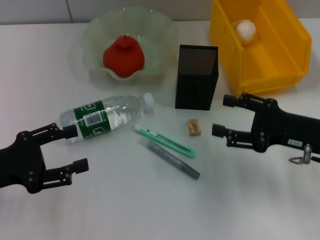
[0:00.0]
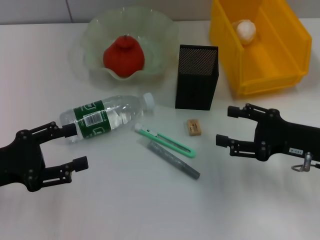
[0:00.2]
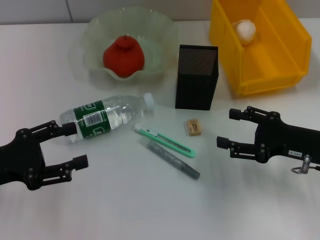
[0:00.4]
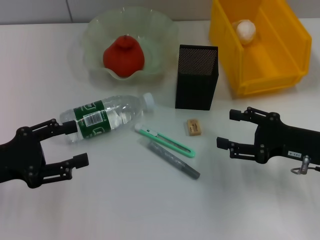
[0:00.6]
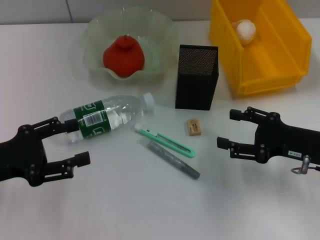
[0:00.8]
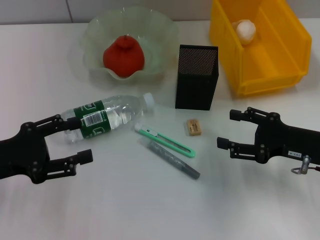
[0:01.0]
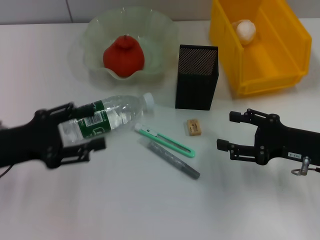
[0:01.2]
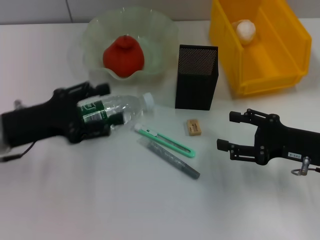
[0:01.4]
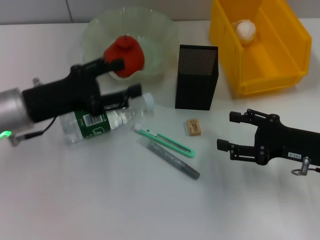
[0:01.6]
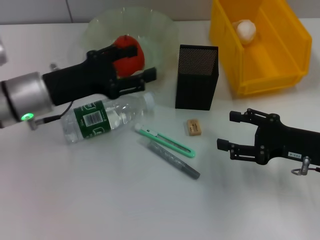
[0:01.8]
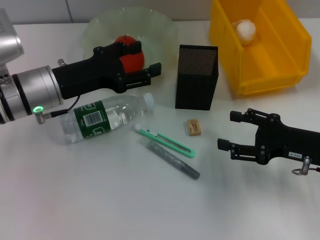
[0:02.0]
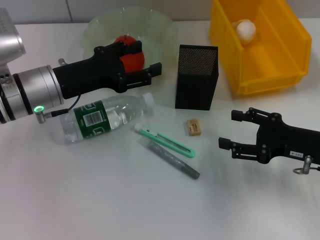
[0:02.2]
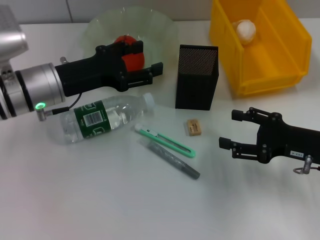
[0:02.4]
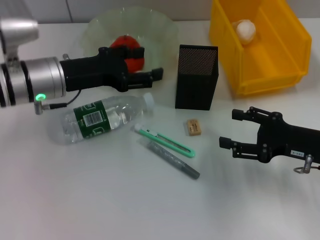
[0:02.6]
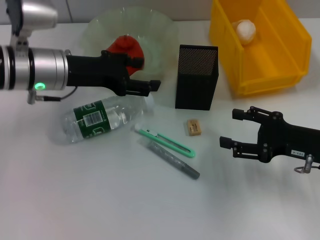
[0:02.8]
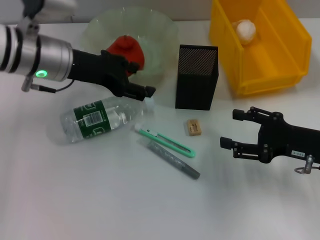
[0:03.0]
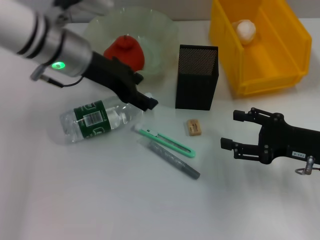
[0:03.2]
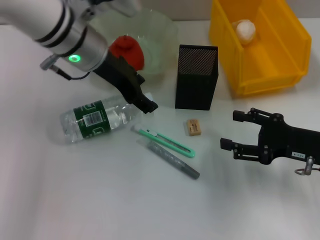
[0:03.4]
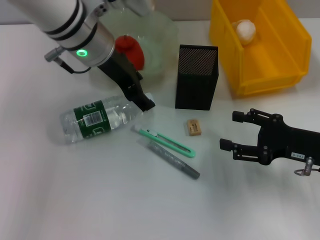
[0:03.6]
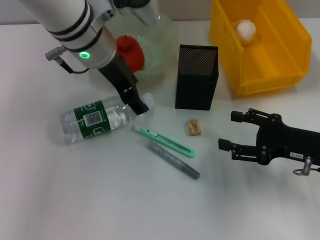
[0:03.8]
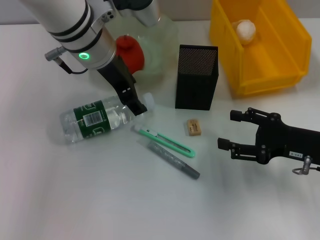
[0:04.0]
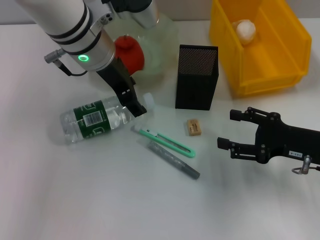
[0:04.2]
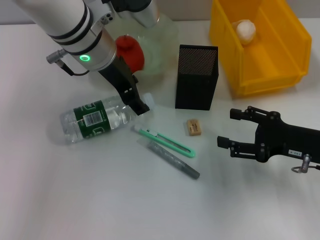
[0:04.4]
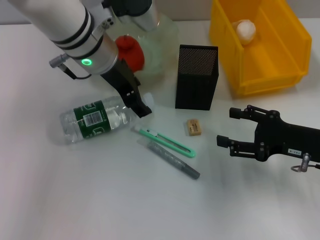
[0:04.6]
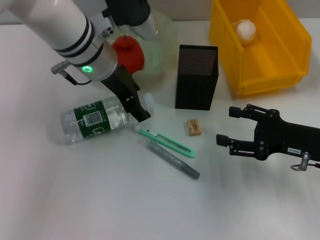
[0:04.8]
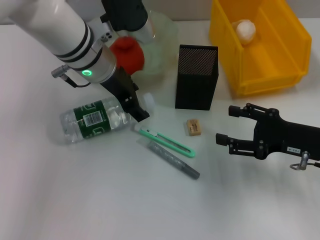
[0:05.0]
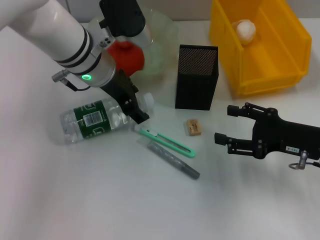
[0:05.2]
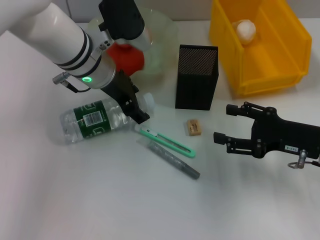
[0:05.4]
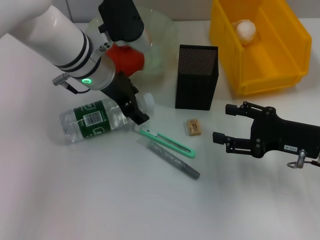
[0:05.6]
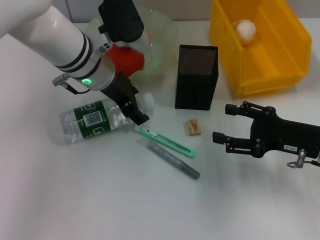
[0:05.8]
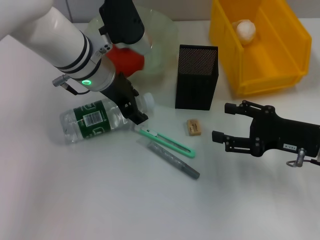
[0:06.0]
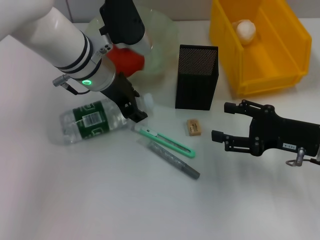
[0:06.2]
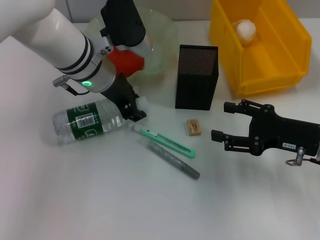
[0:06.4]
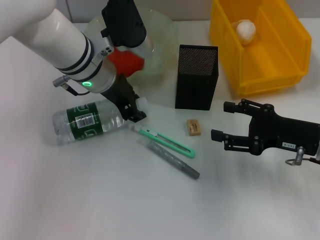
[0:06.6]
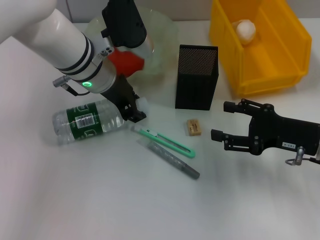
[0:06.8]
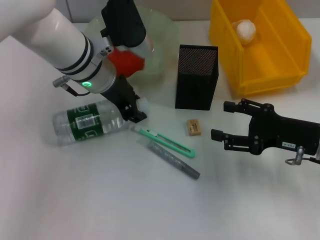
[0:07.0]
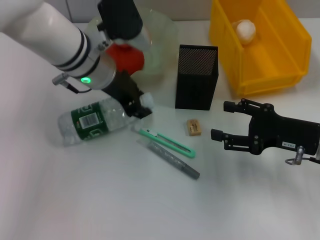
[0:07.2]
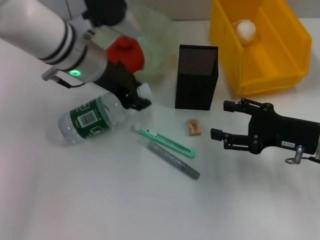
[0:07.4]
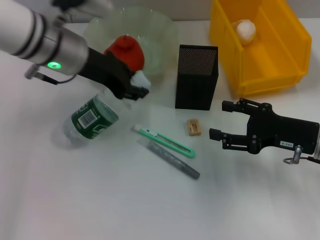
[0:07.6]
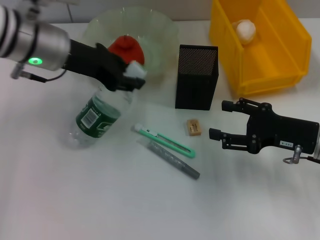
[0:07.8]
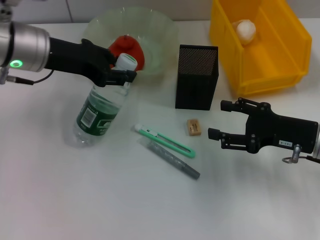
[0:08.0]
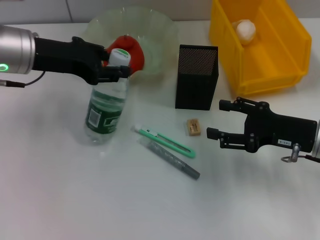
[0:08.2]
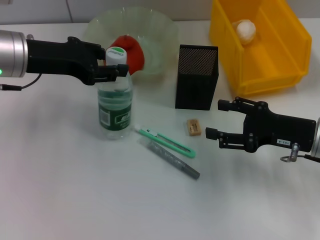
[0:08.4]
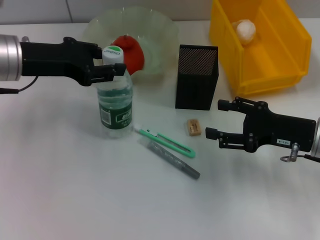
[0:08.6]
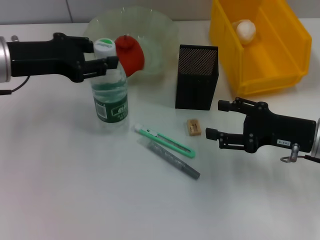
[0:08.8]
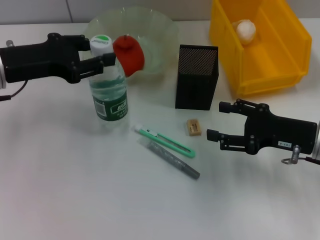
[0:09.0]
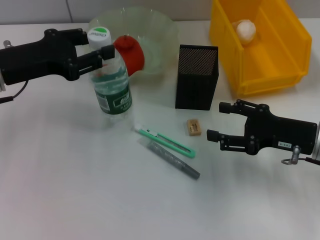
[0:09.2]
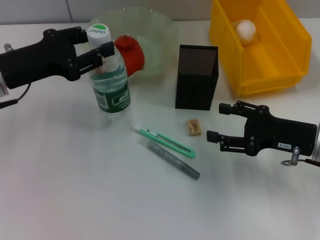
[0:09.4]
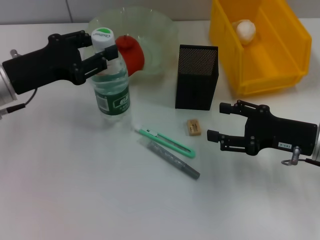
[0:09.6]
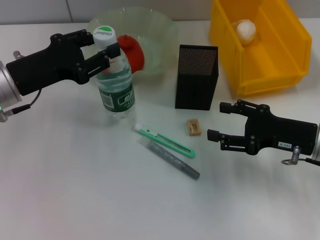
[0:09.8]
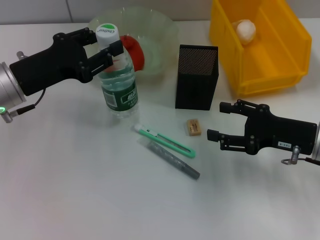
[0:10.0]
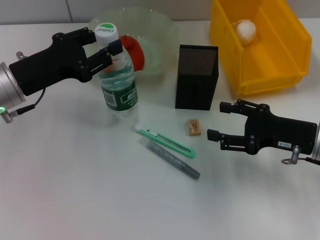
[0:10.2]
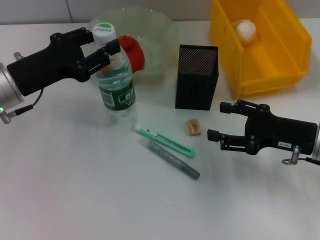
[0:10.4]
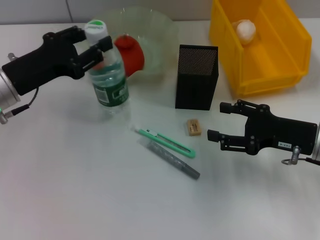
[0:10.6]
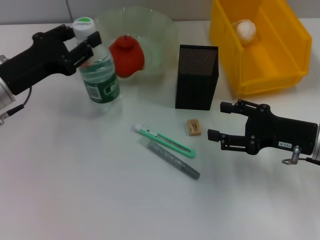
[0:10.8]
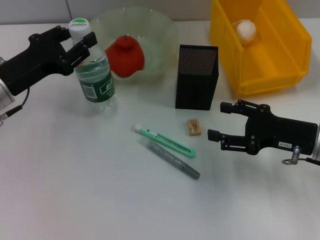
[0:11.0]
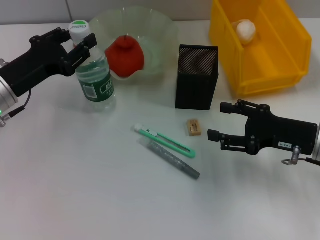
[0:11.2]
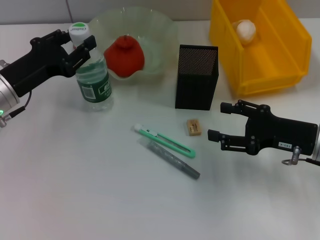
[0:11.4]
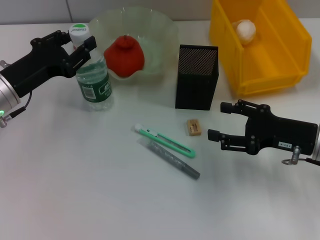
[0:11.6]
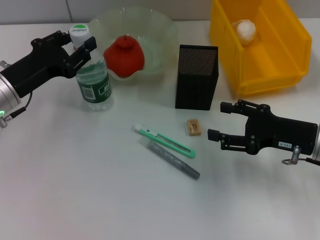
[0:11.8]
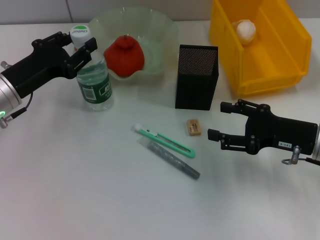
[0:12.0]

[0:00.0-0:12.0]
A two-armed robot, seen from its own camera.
Step, 0:00.0 to 0:06.6: Grab the water bottle with the left hand.
0:00.0 to 0:01.6: The left gripper goes approximately 10 cm forward and to the right.
0:01.6 to 0:03.0: The left gripper heads forward, to the right and upward, covering approximately 10 cm.
0:03.0 to 0:04.4: The left gripper heads to the right, covering some 10 cm.
0:04.4 to 0:06.0: The left gripper changes place by about 5 cm.
0:06.0 to 0:07.6: The left gripper ends up roughly 5 cm from where it was.
0:07.6 to 0:09.0: The left gripper heads to the left, covering some 10 cm.
0:09.0 to 0:10.4: The grippers stay close to where they were, moving slightly.
0:10.4 to 0:12.0: There are only small adjustments of the grippers.

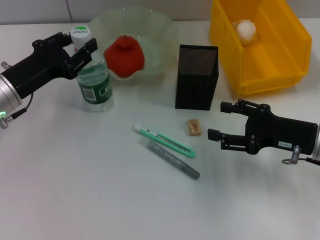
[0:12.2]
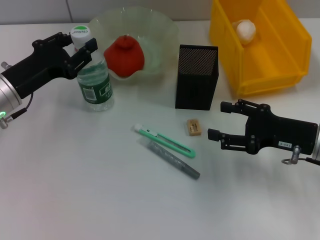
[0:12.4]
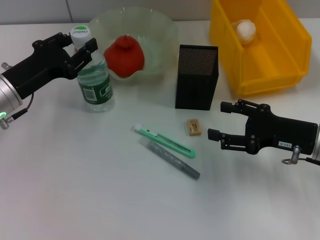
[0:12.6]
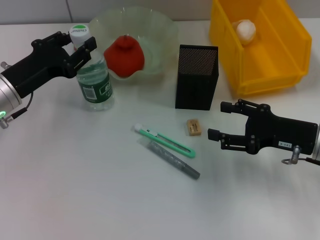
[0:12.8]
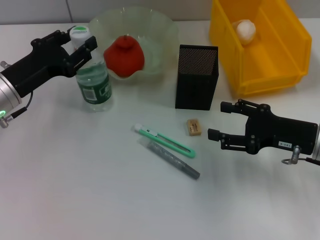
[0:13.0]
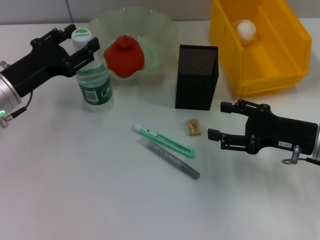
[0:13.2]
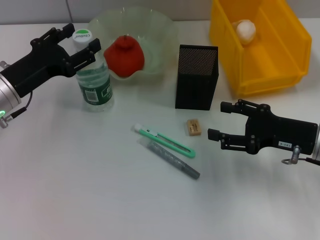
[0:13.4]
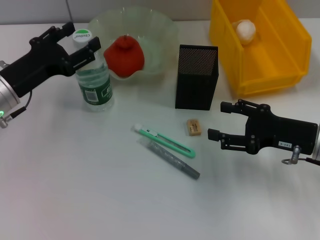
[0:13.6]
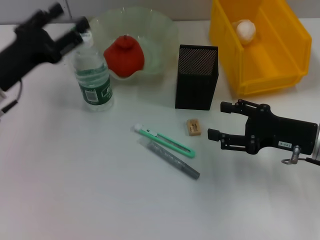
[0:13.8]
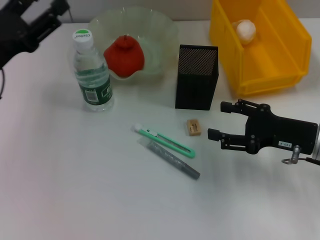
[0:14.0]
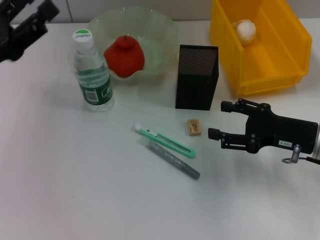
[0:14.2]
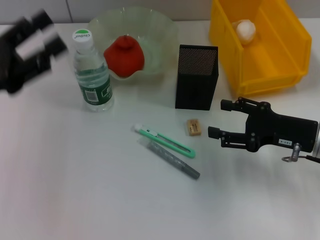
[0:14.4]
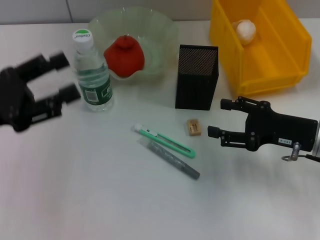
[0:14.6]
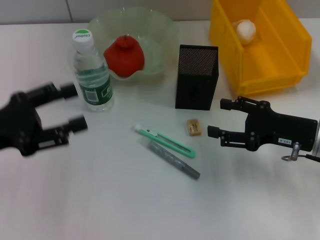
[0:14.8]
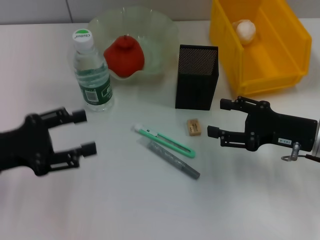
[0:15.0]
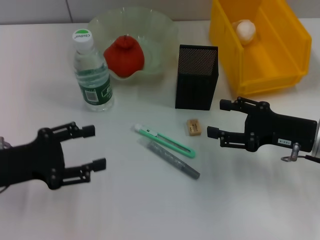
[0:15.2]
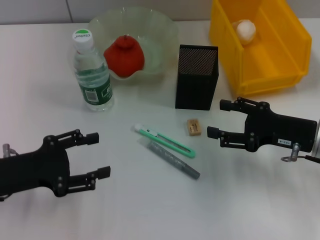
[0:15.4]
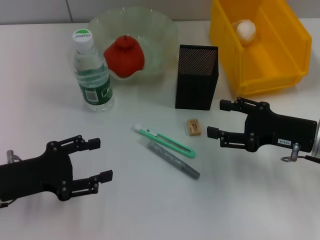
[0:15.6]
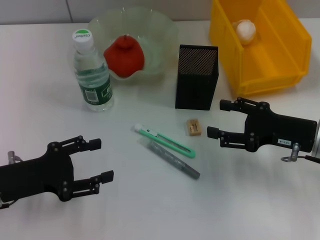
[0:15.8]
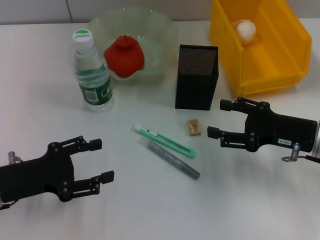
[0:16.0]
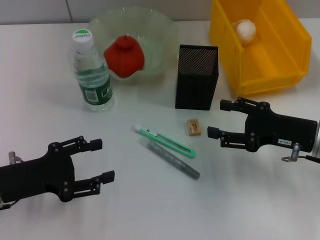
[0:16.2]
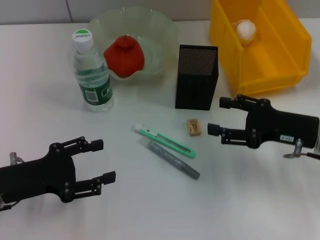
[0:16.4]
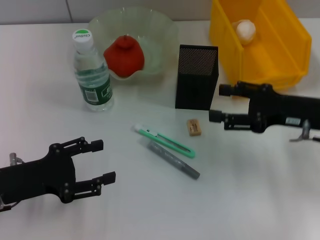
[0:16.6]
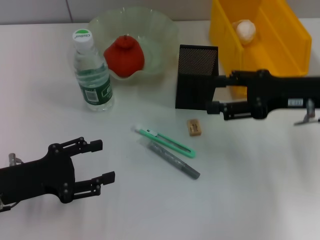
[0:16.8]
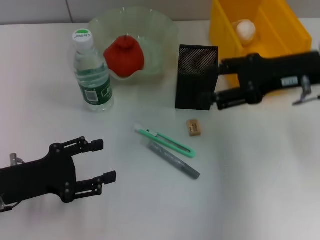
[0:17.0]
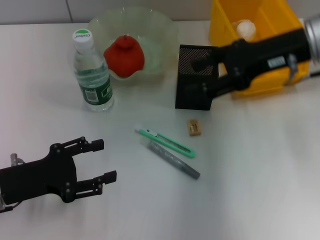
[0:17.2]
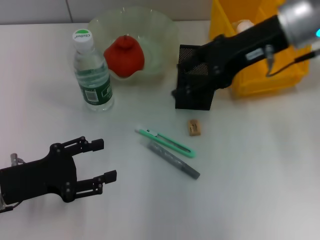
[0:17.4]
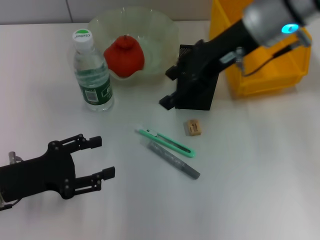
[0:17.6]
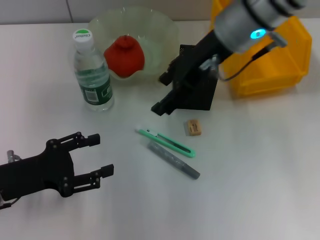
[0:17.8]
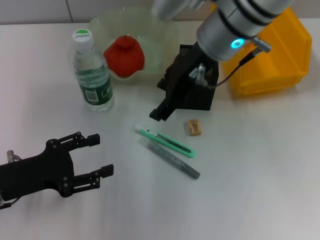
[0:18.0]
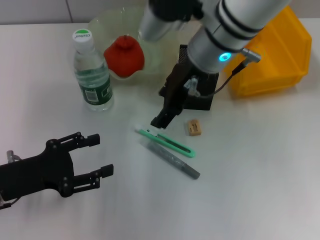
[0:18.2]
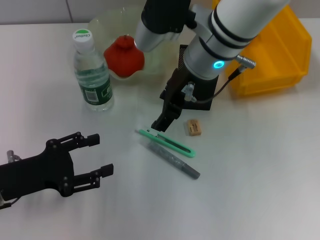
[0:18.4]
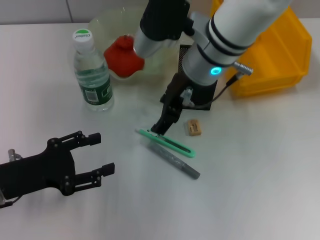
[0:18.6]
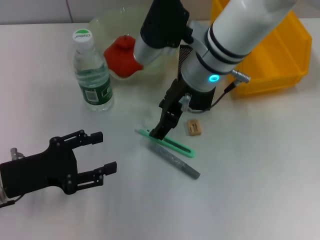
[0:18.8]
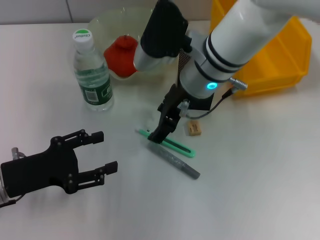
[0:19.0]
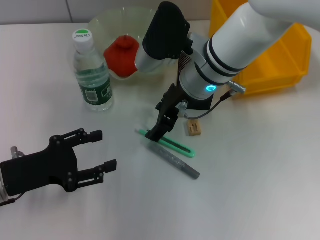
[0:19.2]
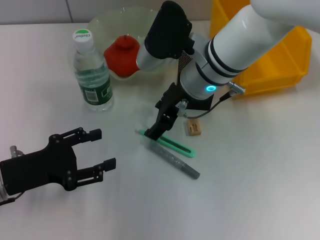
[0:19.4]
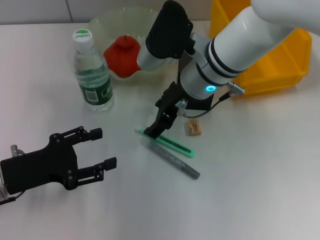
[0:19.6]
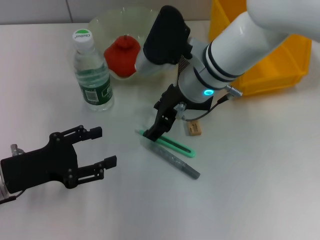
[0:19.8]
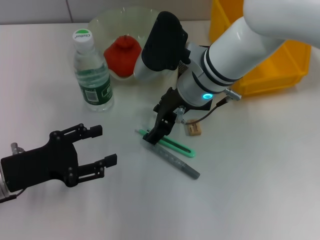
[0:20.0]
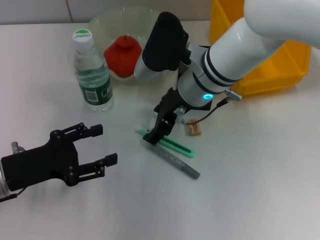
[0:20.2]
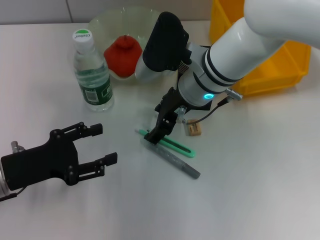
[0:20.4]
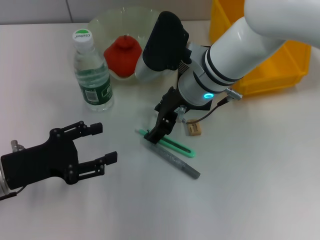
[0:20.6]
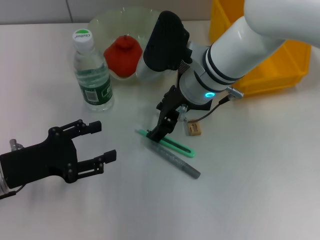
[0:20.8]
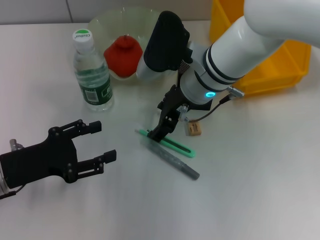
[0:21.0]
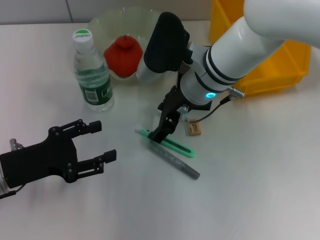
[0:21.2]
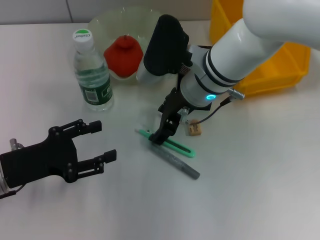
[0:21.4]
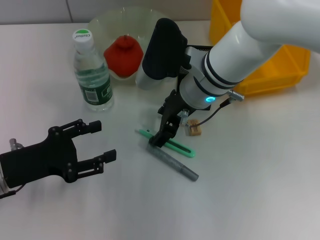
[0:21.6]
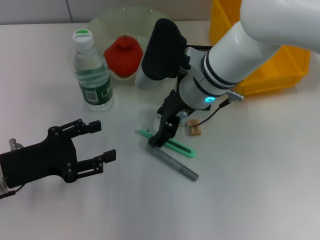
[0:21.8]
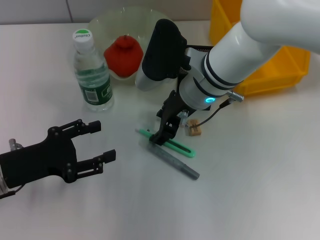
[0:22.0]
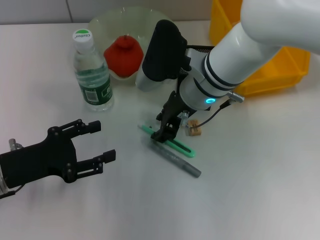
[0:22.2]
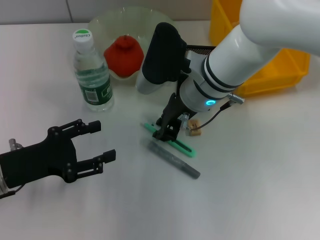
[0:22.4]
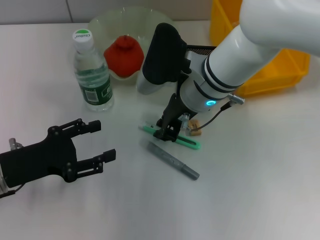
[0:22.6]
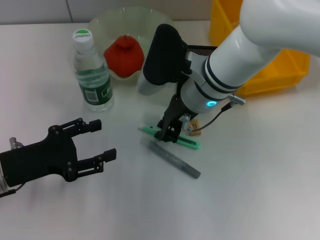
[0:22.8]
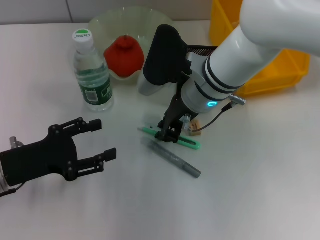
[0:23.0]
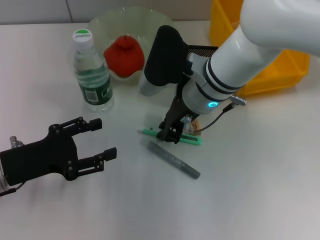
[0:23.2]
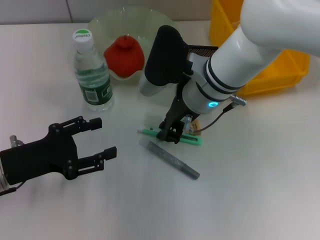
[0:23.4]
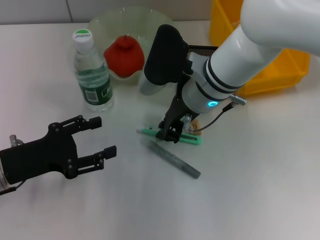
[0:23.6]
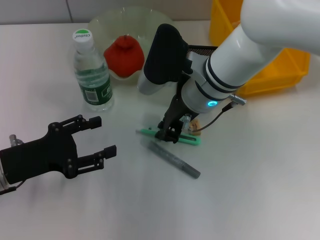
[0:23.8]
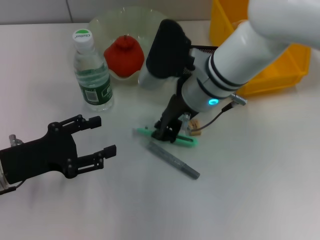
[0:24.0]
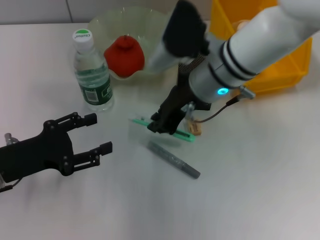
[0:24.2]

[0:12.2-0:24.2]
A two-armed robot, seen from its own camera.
Step, 0:13.4 to 0:23.2: Grab the blue utility knife with the right hand.
0:12.2 to 0:13.8: The left gripper opens.
0:13.8 to 0:15.2: The left gripper moves backward, approximately 10 cm.
0:15.2 to 0:16.6: The grippers stay close to where they were, moving slightly.
0:16.6 to 0:18.2: The right gripper travels to the left, upward and forward by roughly 25 cm.
0:18.2 to 0:19.8: The right gripper is displaced downward by approximately 5 cm.
0:19.8 to 0:21.2: Neither gripper changes place.
0:21.2 to 0:22.6: The right gripper closes its fingers.
0:22.6 to 0:24.2: The grippers stay close to where they were, moving slightly.
